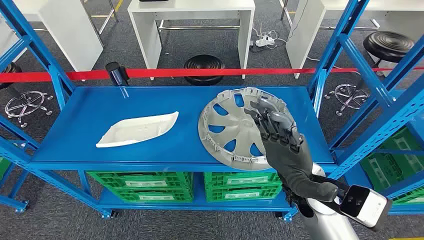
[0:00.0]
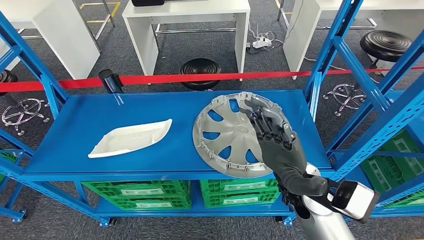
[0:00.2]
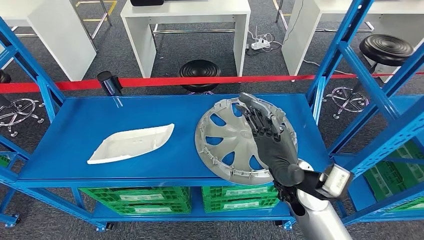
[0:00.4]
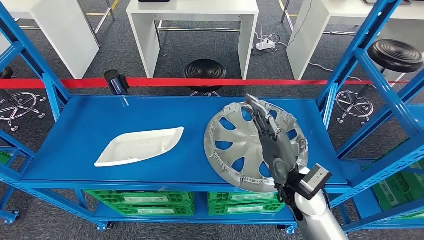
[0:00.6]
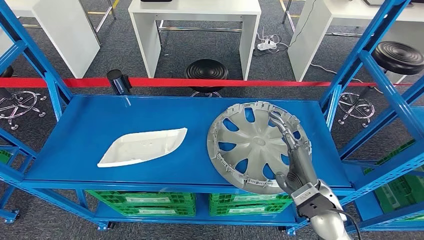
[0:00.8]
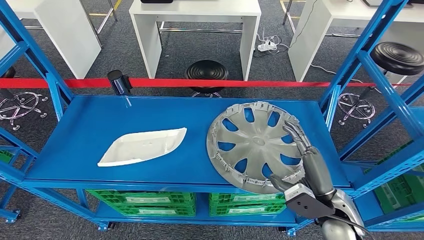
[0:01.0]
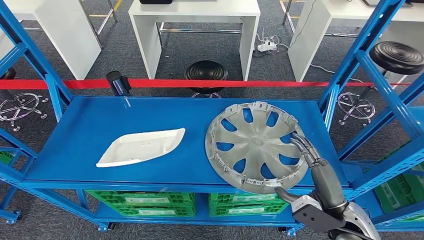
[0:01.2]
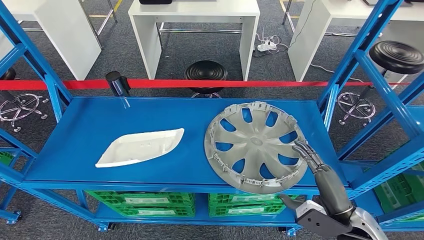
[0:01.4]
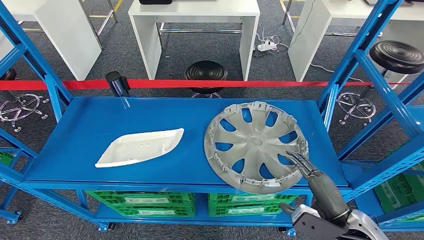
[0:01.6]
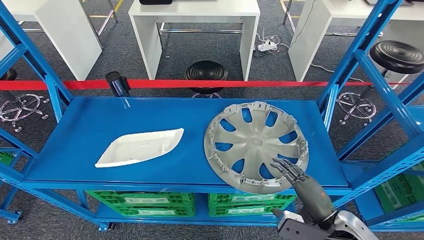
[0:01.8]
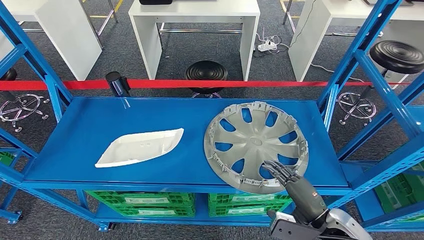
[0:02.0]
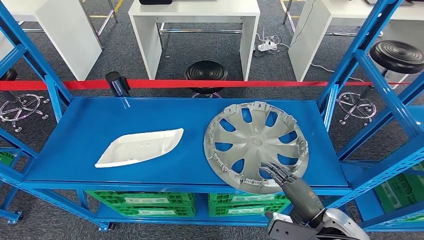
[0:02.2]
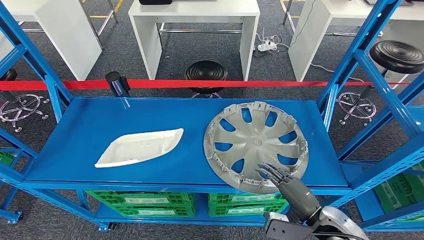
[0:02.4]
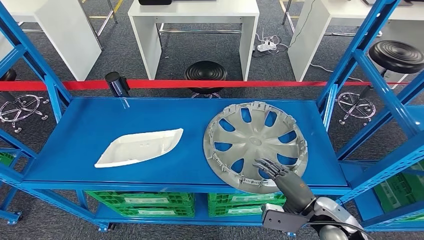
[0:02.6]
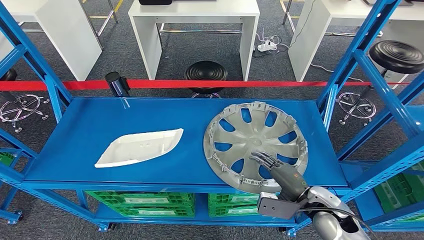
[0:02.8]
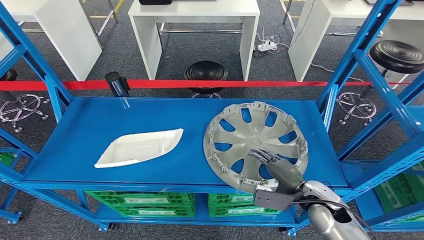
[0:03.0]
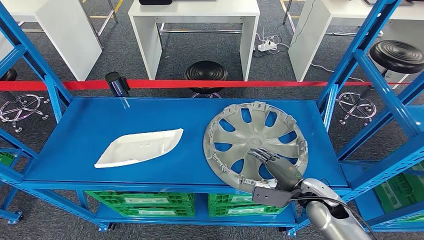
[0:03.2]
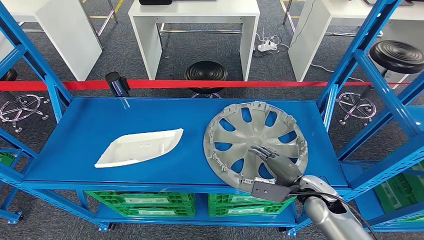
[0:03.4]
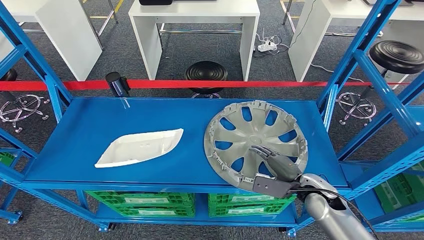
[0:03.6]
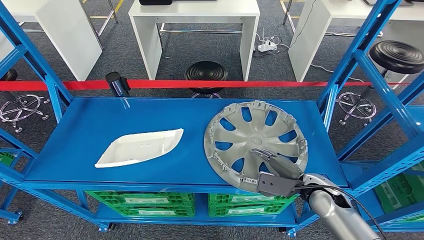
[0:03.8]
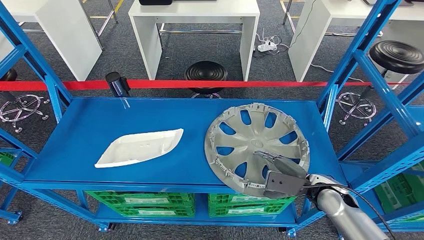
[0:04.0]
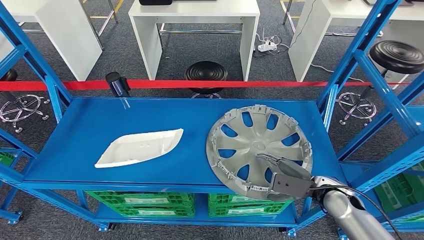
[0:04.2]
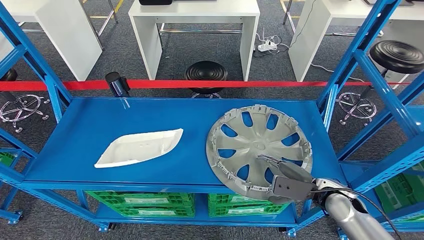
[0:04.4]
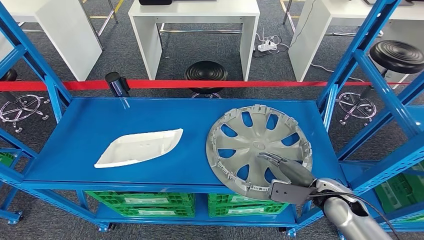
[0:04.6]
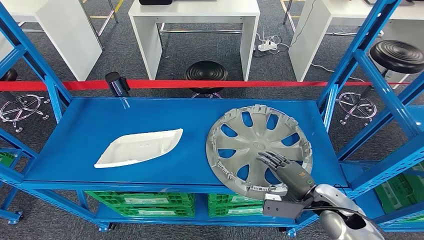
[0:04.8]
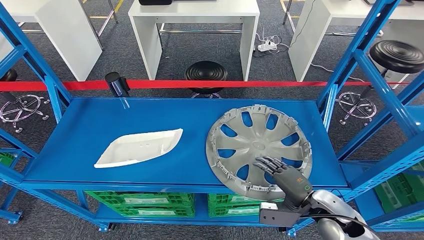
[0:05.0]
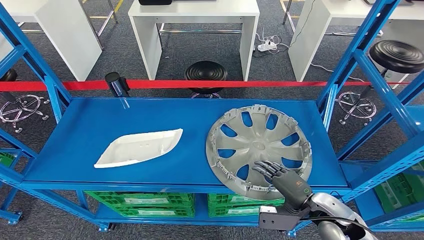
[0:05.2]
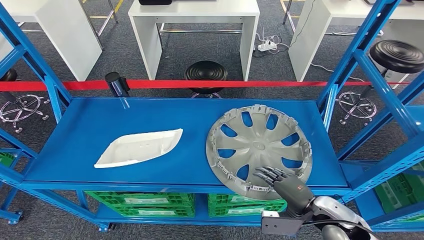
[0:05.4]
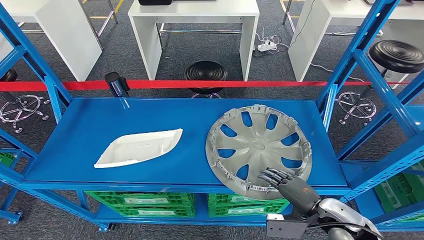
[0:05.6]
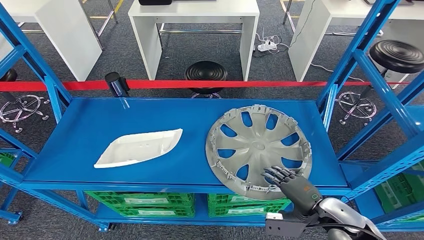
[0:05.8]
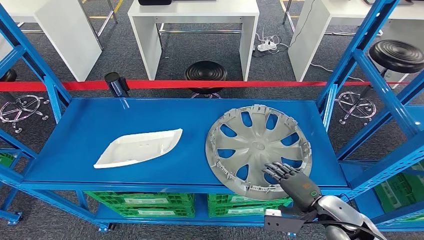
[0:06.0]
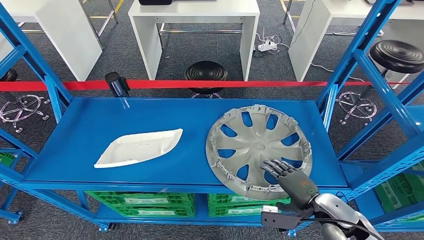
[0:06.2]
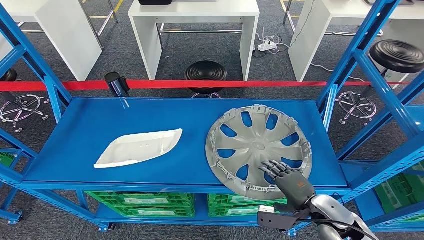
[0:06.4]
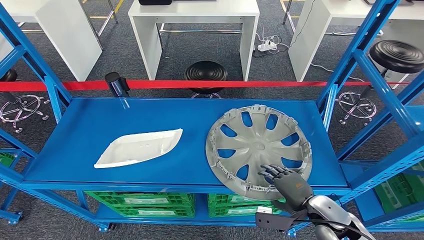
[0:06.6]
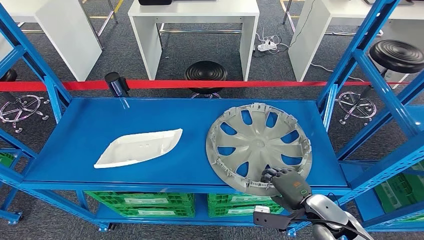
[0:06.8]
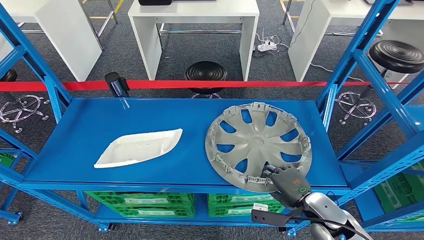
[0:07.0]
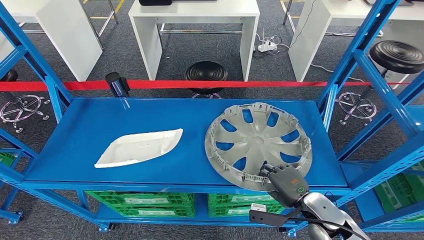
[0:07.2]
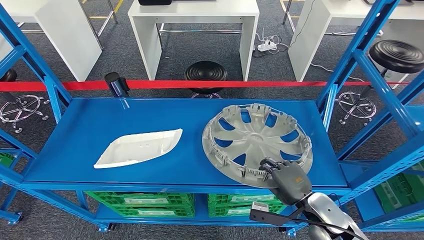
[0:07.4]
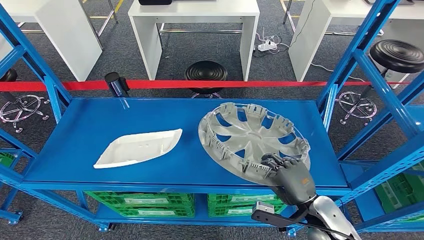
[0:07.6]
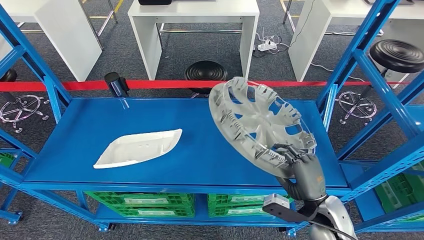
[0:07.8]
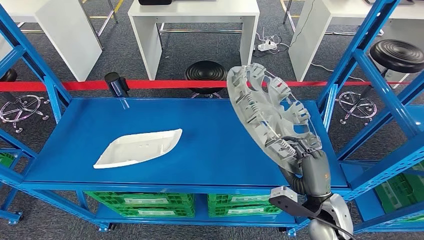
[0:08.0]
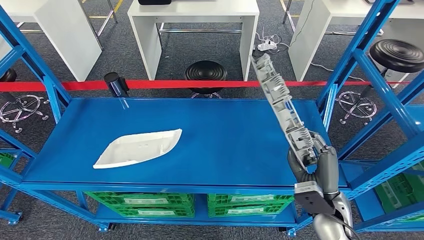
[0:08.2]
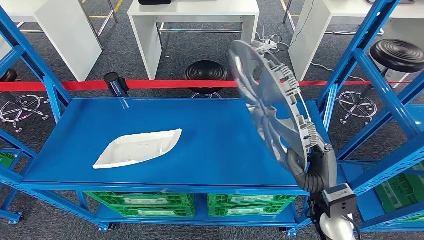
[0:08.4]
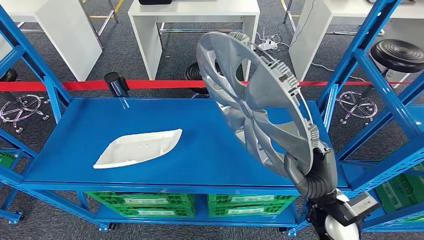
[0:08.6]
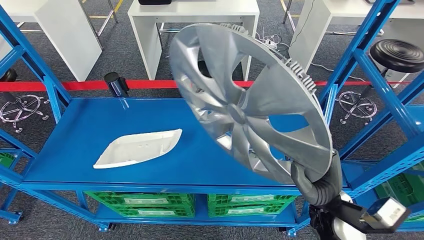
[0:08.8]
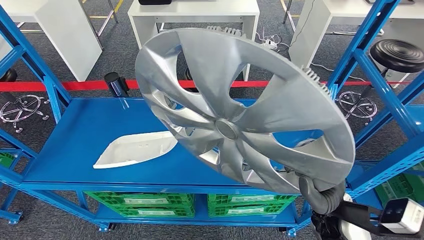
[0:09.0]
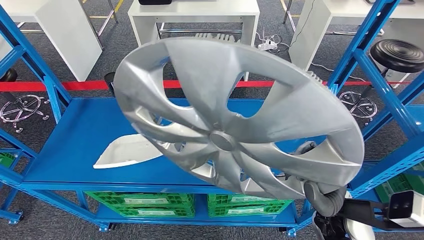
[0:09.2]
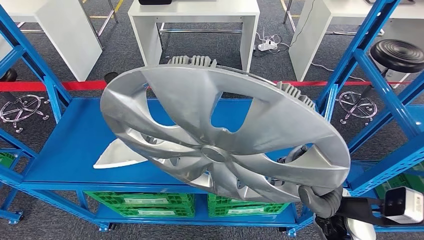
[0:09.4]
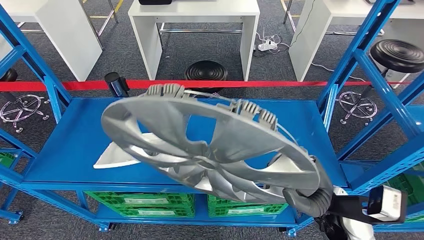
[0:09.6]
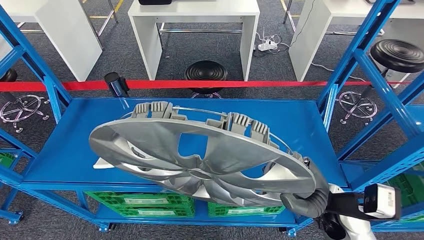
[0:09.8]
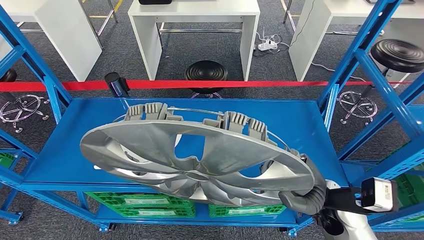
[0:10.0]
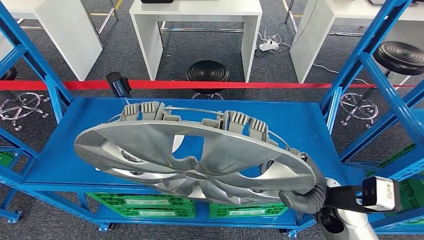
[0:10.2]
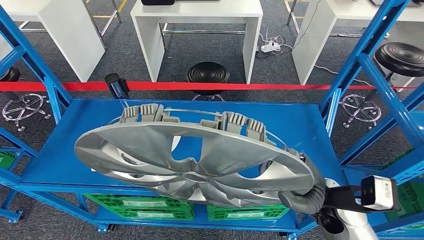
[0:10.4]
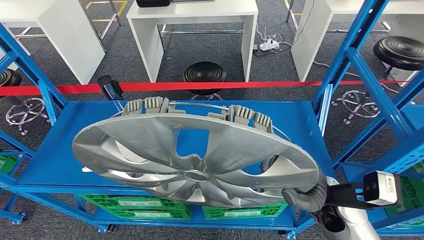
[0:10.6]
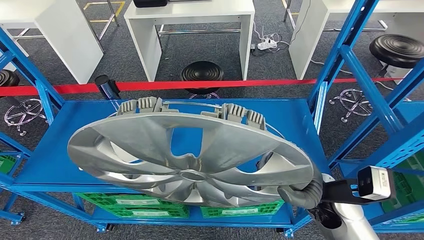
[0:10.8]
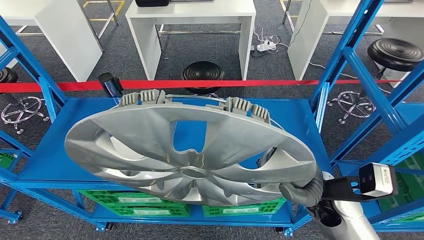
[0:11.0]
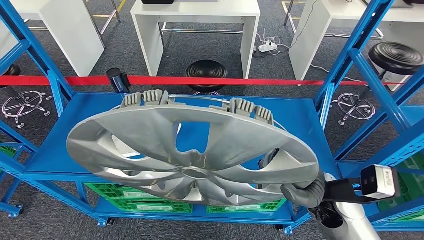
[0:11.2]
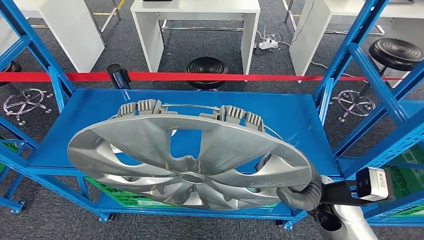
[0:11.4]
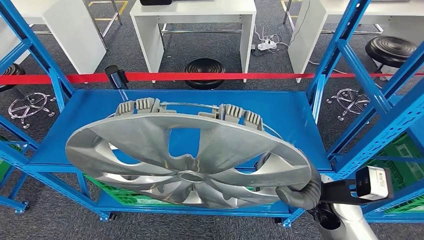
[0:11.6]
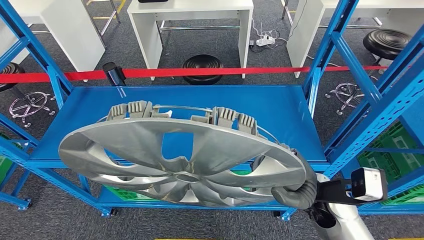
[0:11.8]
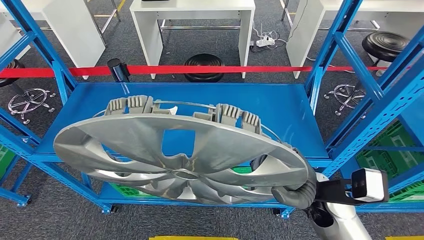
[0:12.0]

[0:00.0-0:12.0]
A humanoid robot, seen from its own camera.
Step, 0:00.0 to 0:08.8: Pick up the small parts from the shelf.
0:01.6 to 0:03.0: The right hand is displaced forward by roughly 10 cm.
0:03.0 to 0:04.4: There are only small adjustments of the hands.
0:04.4 to 0:06.0: The right hand goes roughly 5 cm backward.

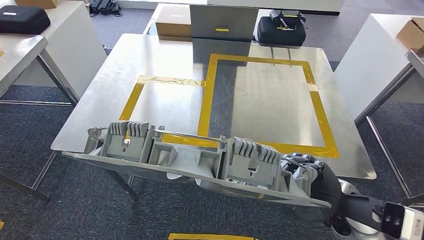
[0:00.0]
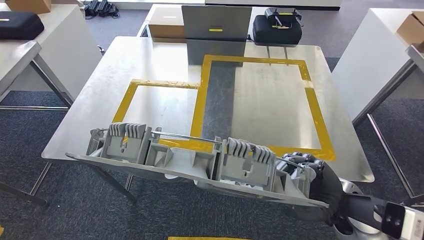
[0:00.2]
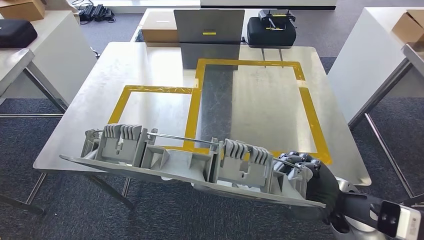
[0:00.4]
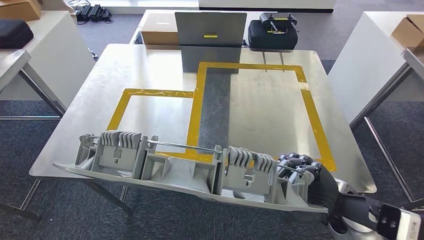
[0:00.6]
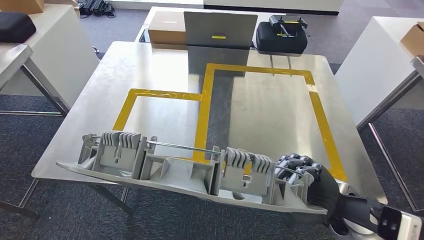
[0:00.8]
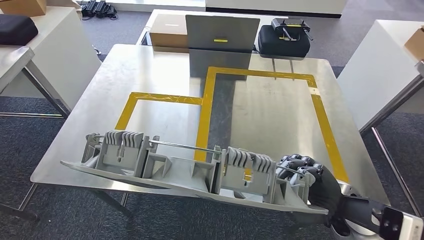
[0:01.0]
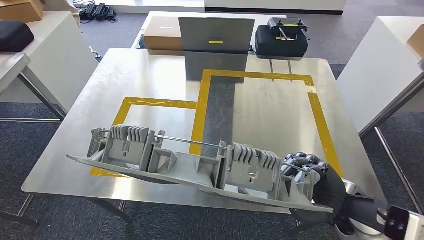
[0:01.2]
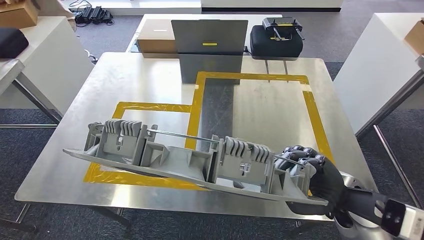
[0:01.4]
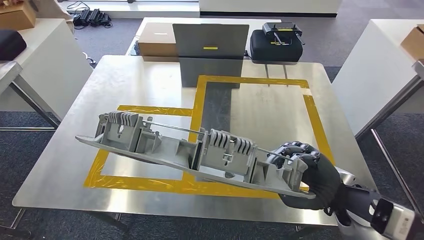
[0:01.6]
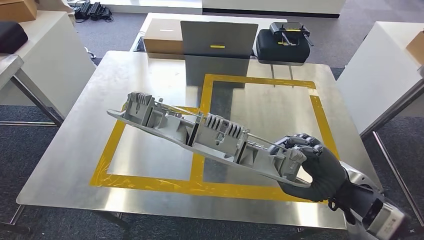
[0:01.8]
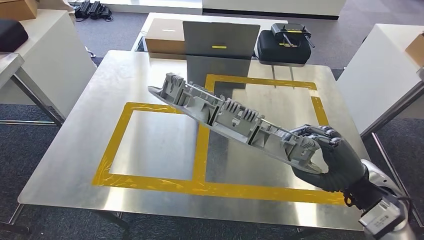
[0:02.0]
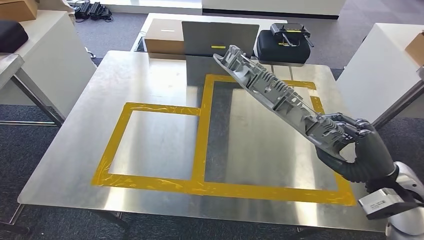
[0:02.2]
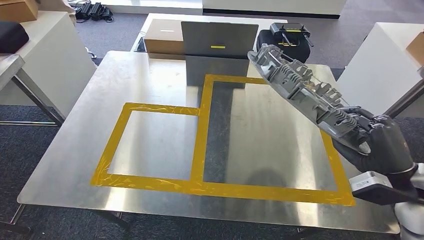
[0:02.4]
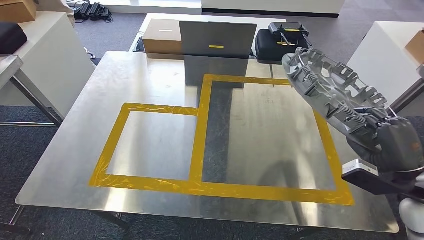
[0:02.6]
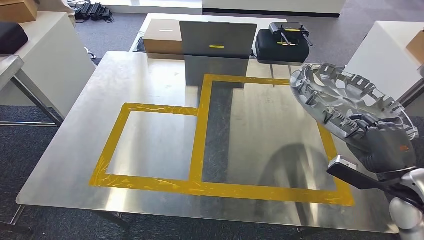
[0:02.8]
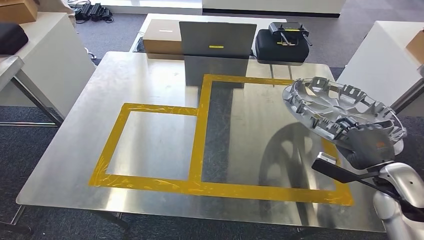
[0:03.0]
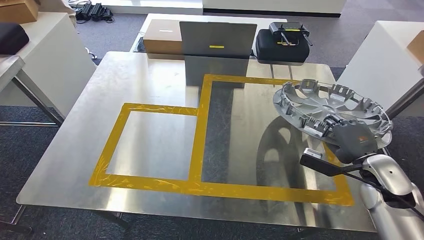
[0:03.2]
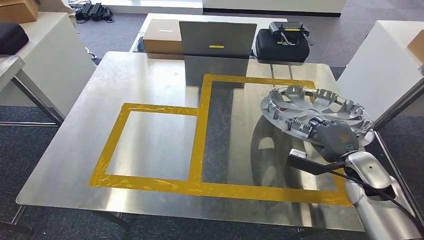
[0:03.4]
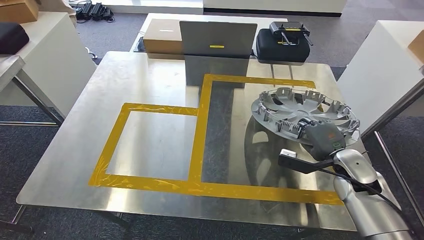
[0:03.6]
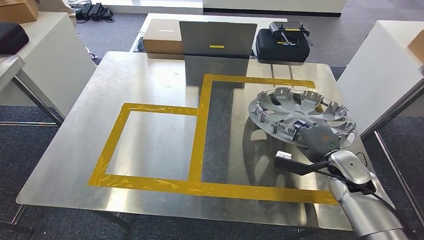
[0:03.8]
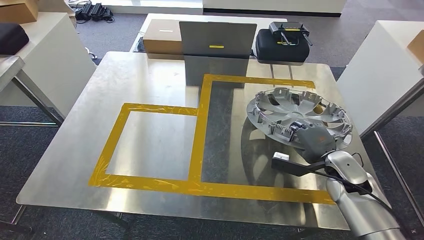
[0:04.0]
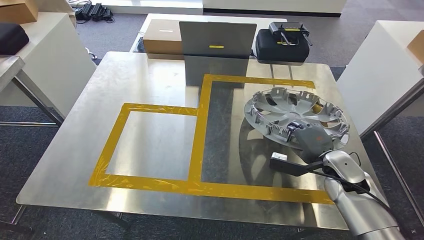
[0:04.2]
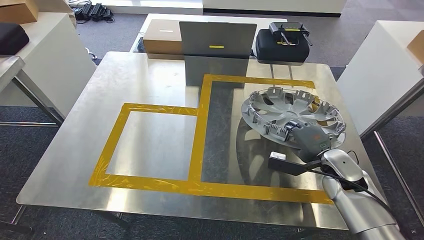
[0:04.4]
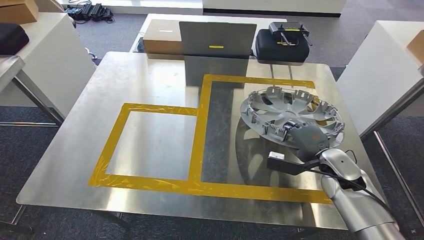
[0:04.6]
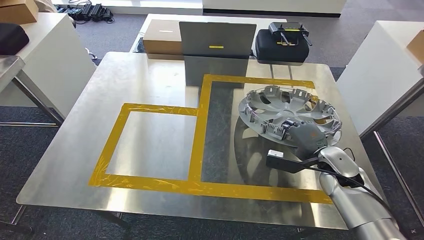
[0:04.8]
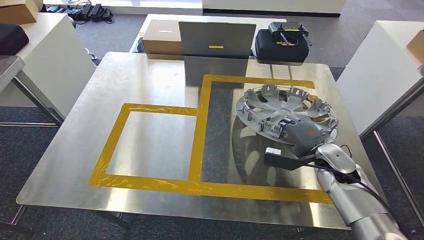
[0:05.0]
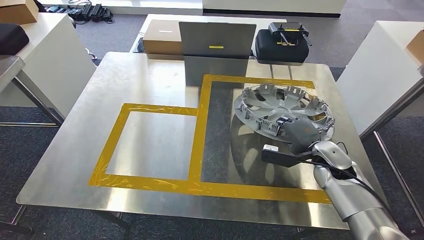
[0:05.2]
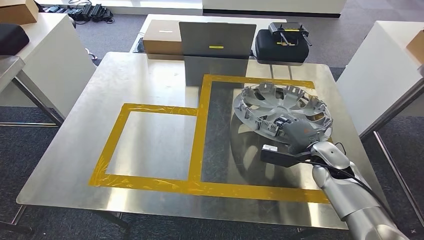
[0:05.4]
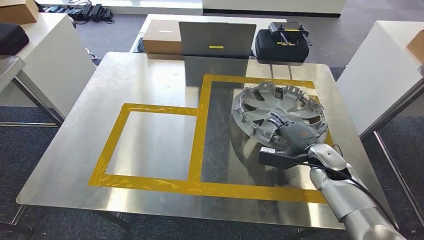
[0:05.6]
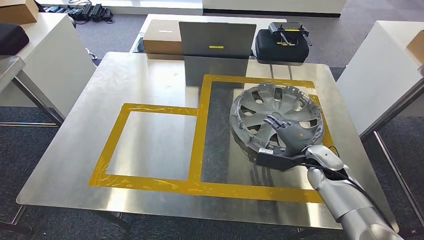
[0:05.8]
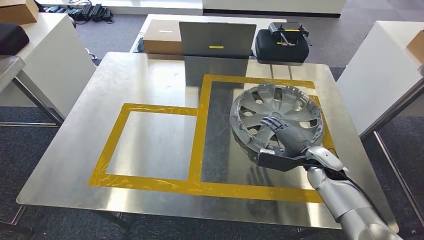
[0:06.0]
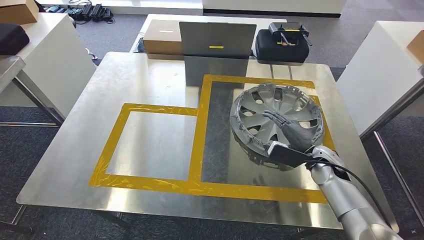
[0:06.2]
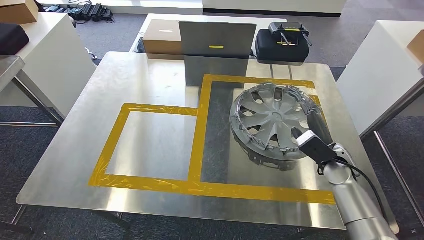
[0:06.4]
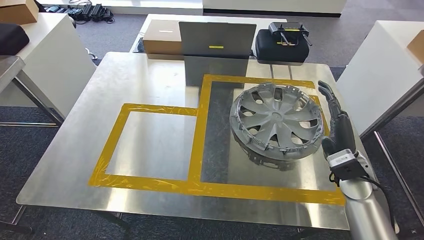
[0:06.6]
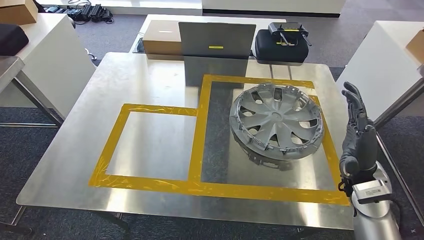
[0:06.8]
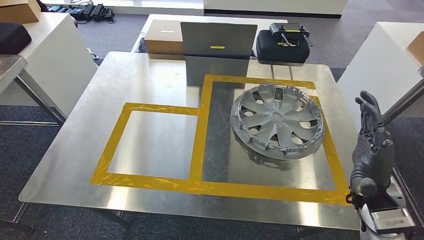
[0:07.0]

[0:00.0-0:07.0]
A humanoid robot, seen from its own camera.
0:02.8 to 0:04.2: The right hand moves to the left, forward and downward, about 15 cm.
0:04.2 to 0:05.6: The hands stay close to where they were, moving slightly.
0:05.6 to 0:07.0: The right hand shifts roughly 15 cm backward and upward.
